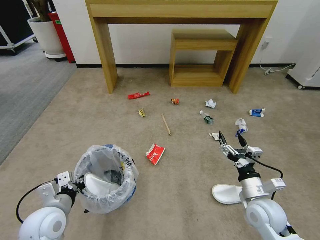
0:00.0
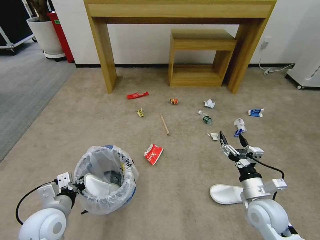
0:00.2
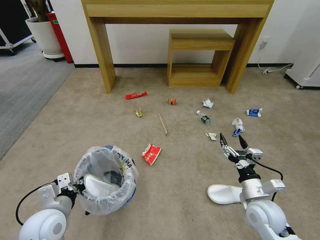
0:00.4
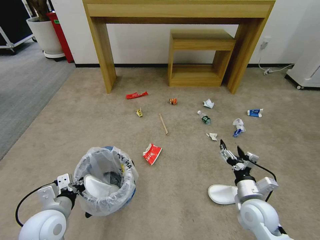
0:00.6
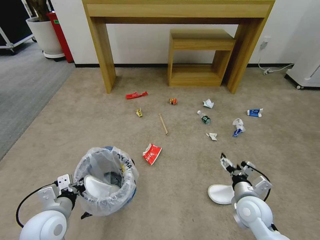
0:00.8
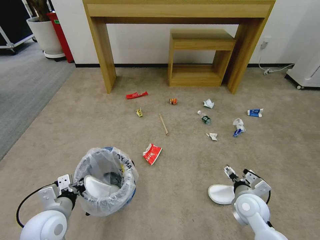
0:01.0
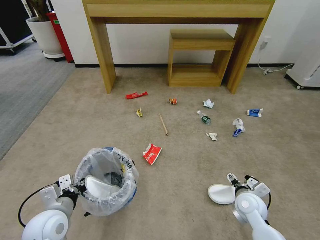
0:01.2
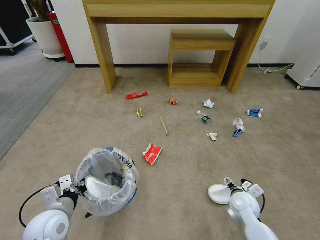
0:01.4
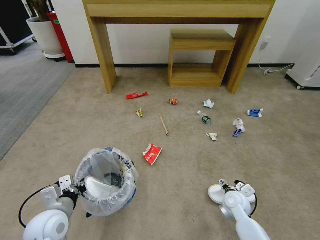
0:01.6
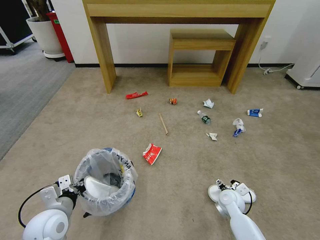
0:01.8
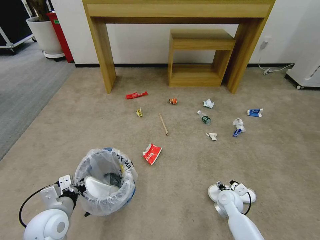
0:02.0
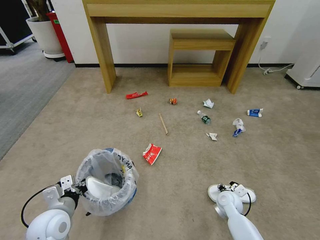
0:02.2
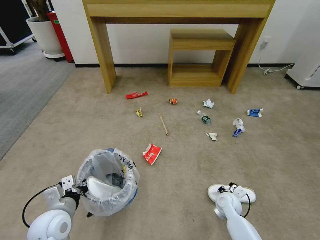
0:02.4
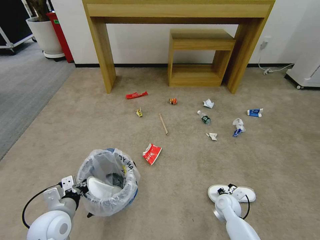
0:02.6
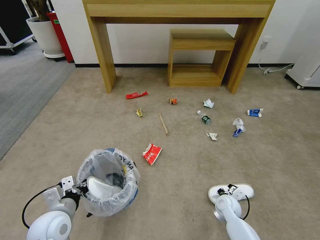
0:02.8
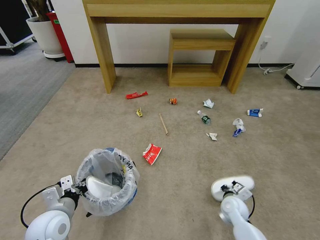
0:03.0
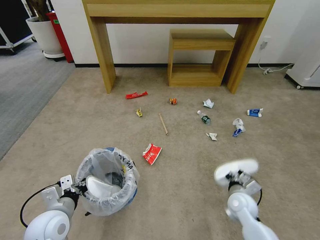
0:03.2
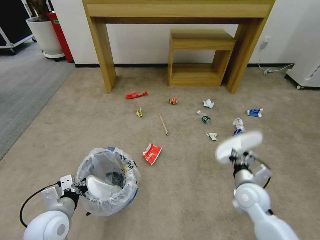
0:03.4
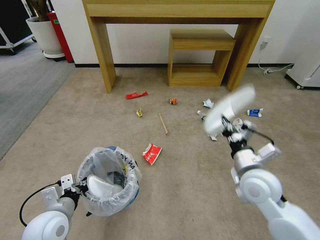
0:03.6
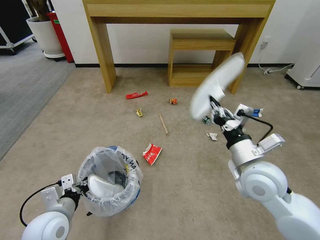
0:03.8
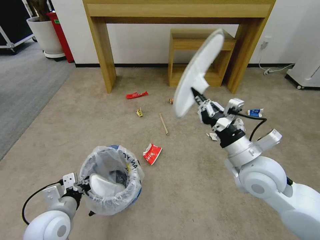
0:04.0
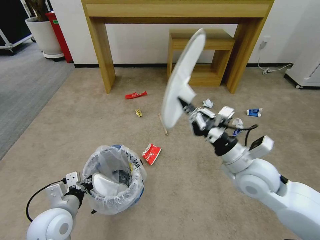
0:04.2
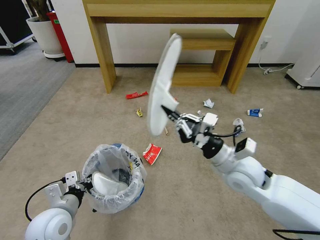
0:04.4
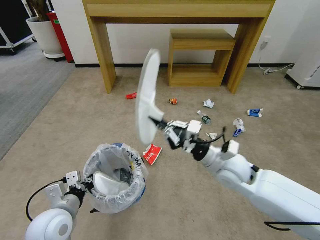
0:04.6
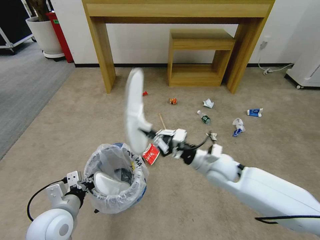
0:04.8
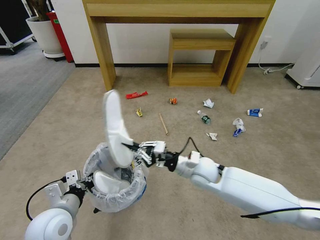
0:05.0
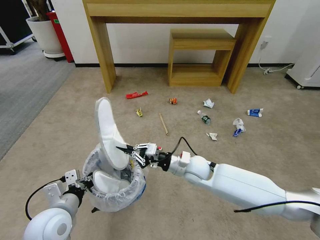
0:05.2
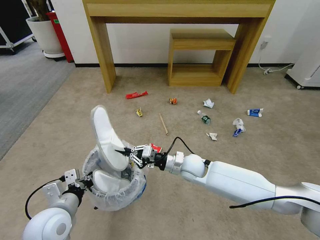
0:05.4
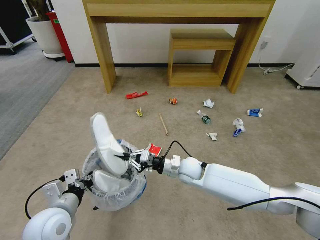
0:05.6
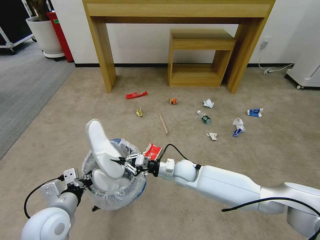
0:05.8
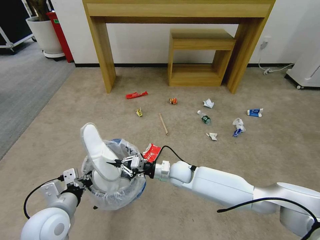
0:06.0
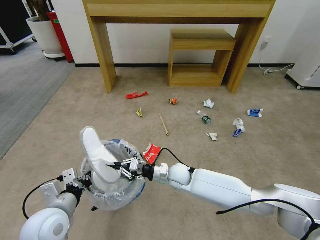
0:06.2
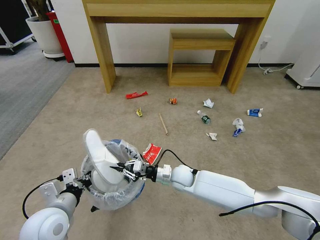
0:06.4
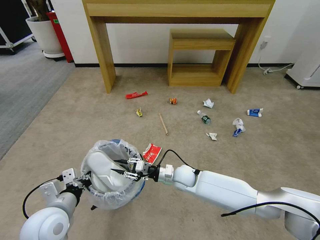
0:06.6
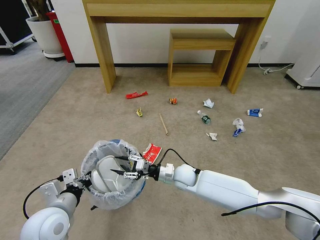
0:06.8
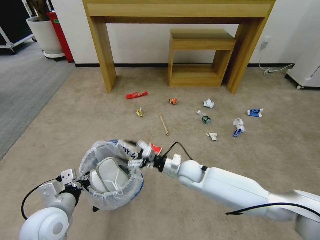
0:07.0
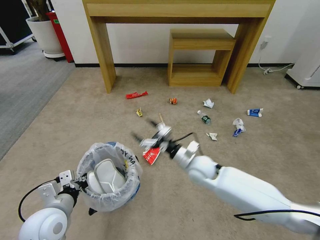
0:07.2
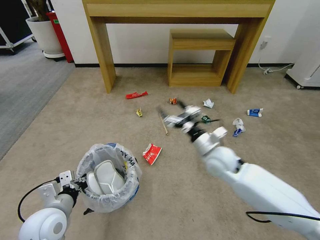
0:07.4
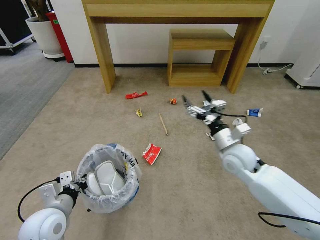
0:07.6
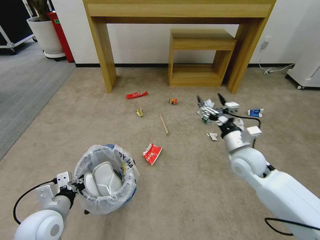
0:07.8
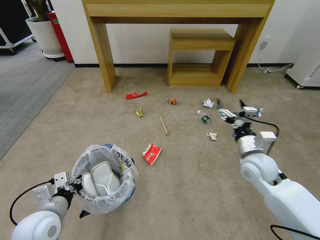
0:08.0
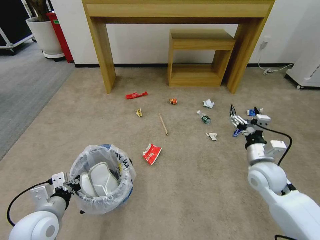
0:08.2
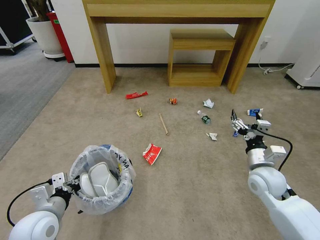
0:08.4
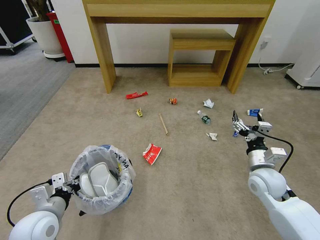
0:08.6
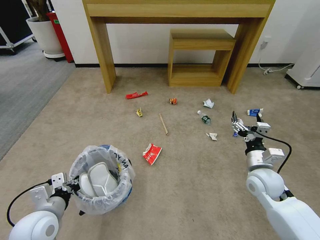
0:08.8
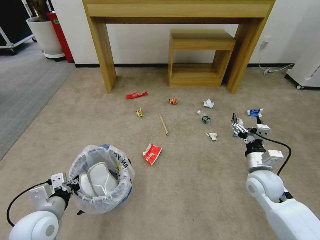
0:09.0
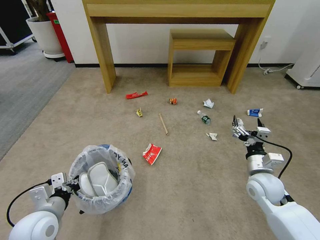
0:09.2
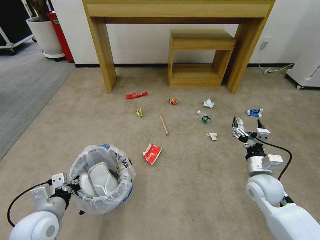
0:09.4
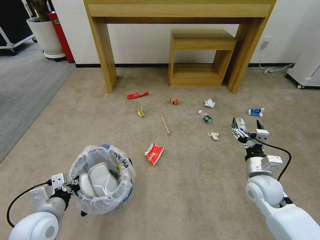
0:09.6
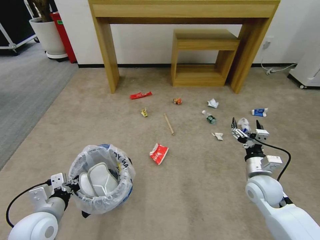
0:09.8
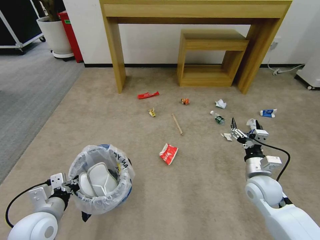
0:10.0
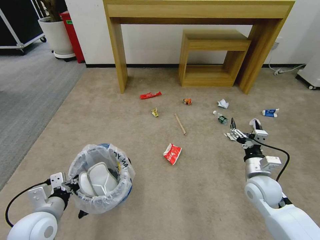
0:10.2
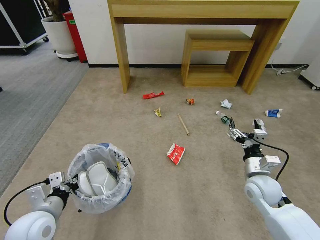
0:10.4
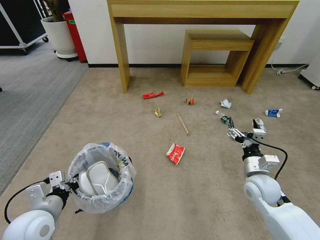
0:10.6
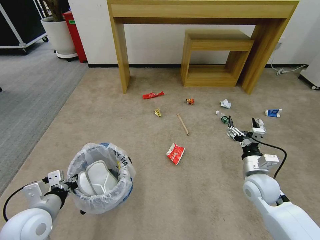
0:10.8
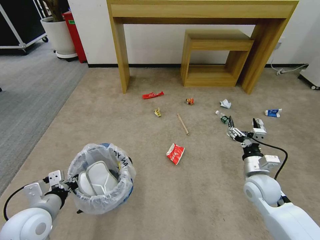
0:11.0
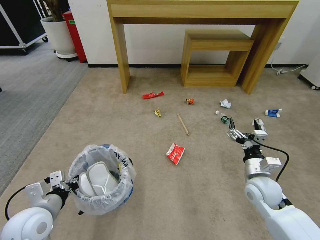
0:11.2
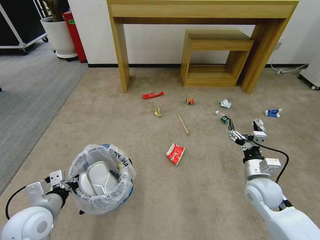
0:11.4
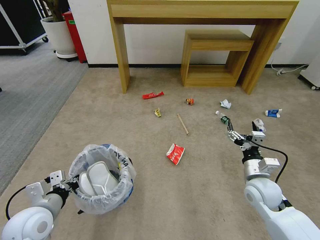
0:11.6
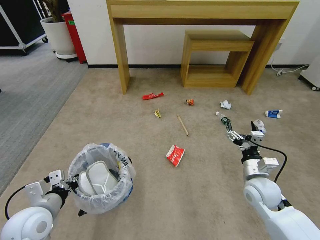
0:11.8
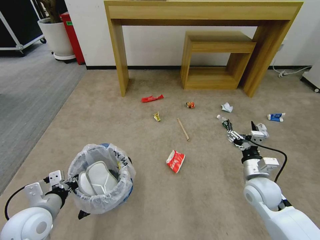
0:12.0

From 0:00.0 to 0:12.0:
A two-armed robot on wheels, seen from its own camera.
Task of the whole recording: Pick up the trash bin and place the garbage on the floor into it.
From 0:00.0 to 0:01.6: The right gripper shifts roughly 15 cm downward and forward.
From 0:01.6 to 0:03.0: The right gripper closes its fingers.
From 0:03.0 to 0:04.4: The right gripper is displaced upward by approximately 25 cm.
From 0:04.4 to 0:06.0: The right gripper goes approximately 25 cm downward, to the left and forward.
From 0:06.0 to 0:07.6: The right gripper heads to the right and upward, covering about 20 cm, and opens its fingers.
From 0:07.6 to 0:09.0: The right gripper moves to the right, backward and downward, some 10 cm.
From 0:10.4 to 0:12.0: There are only small adjustments of the grippers.

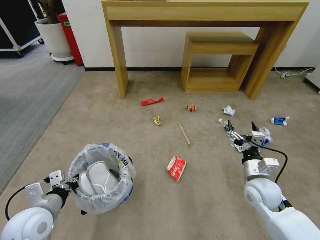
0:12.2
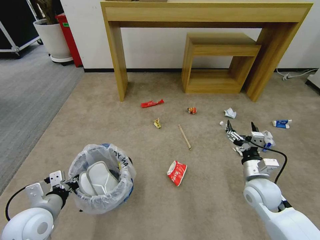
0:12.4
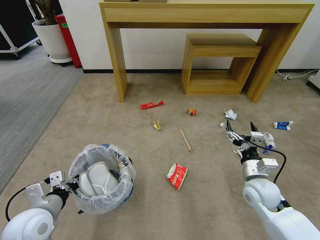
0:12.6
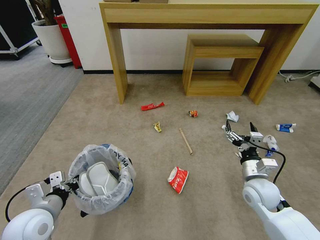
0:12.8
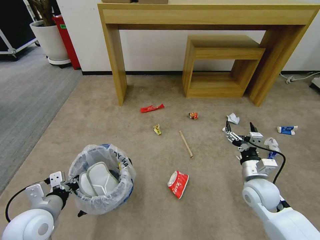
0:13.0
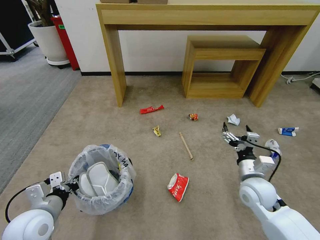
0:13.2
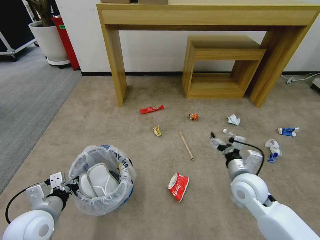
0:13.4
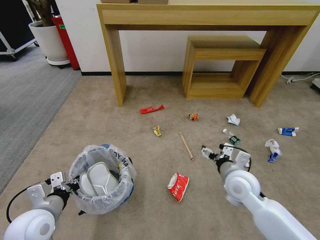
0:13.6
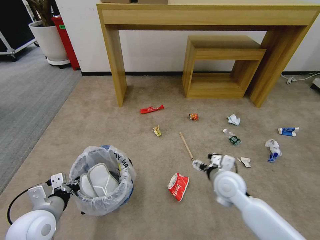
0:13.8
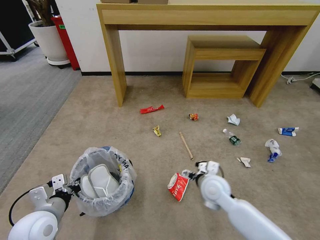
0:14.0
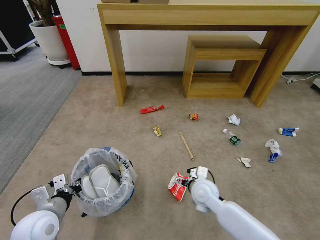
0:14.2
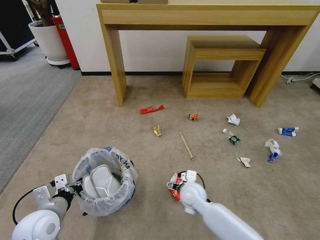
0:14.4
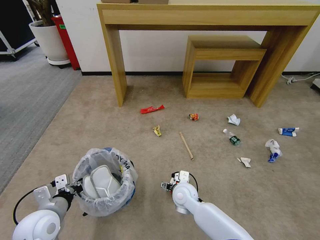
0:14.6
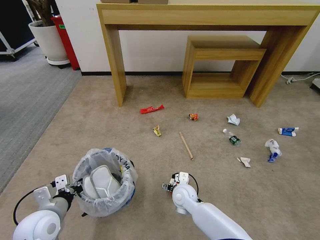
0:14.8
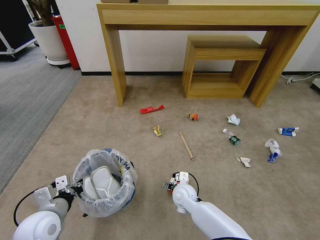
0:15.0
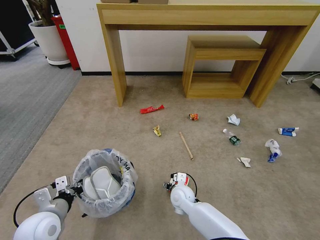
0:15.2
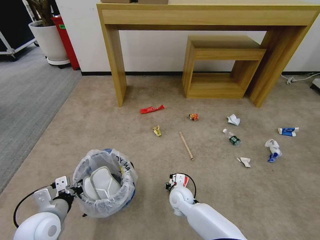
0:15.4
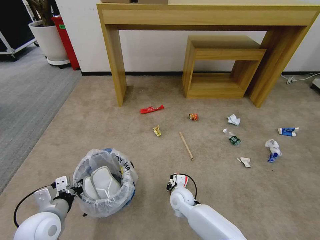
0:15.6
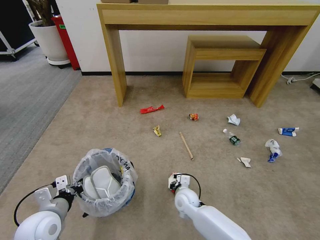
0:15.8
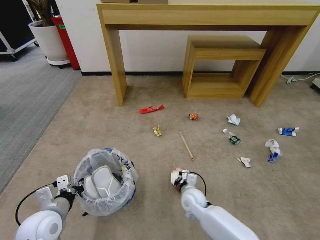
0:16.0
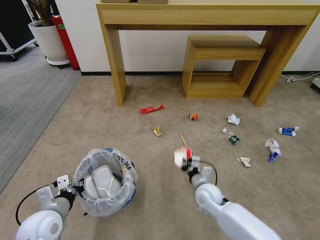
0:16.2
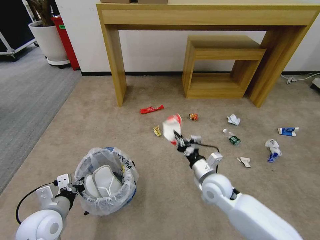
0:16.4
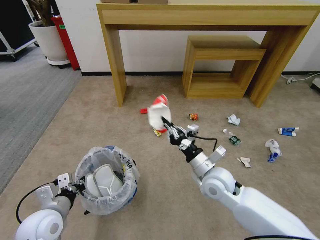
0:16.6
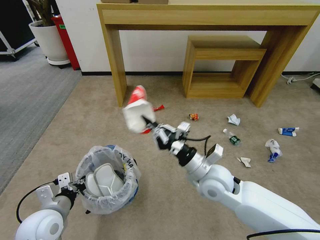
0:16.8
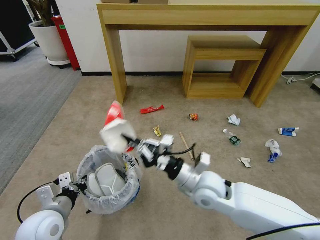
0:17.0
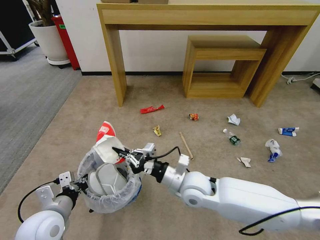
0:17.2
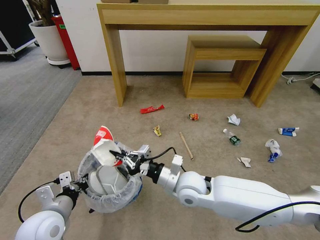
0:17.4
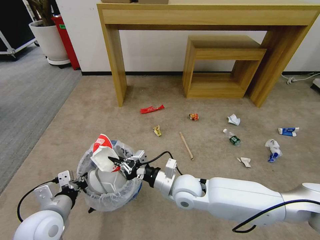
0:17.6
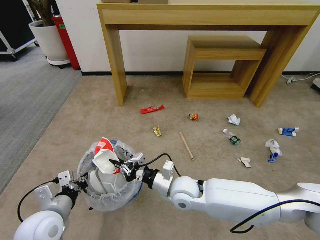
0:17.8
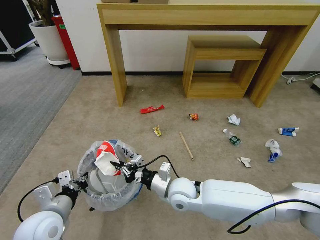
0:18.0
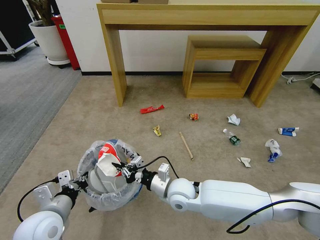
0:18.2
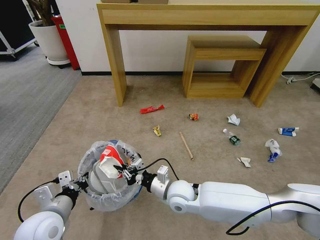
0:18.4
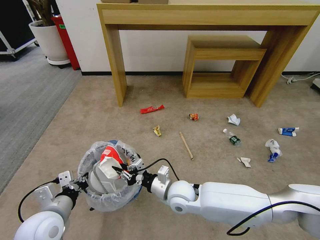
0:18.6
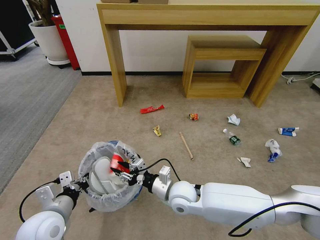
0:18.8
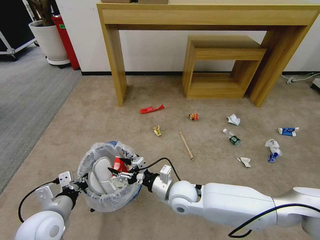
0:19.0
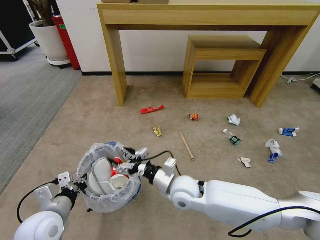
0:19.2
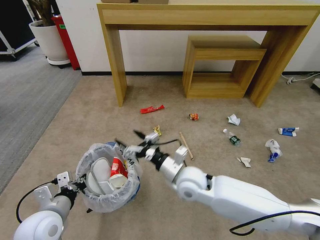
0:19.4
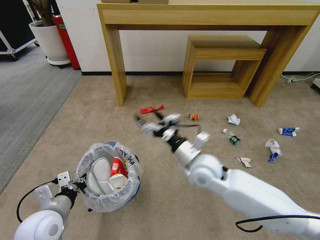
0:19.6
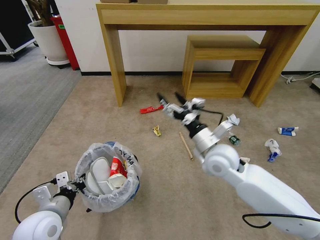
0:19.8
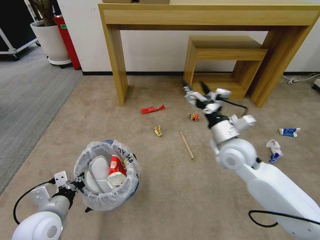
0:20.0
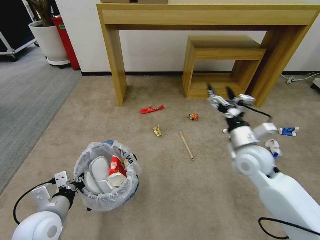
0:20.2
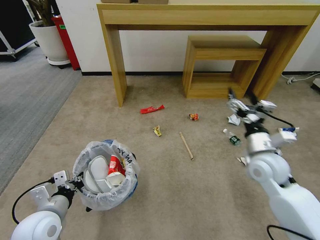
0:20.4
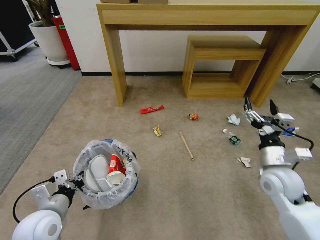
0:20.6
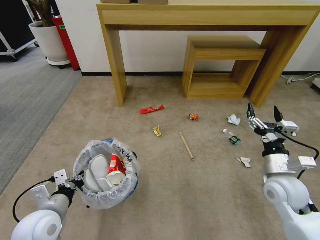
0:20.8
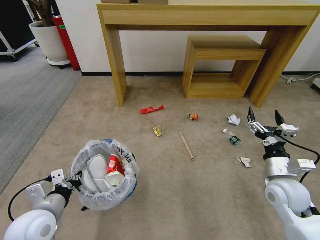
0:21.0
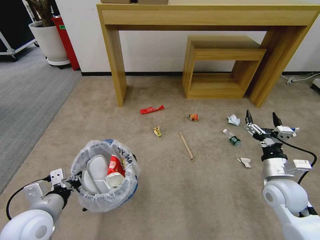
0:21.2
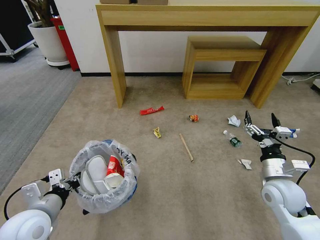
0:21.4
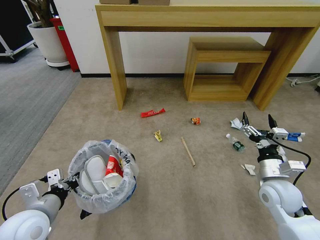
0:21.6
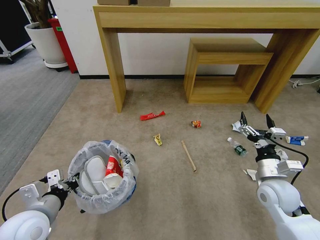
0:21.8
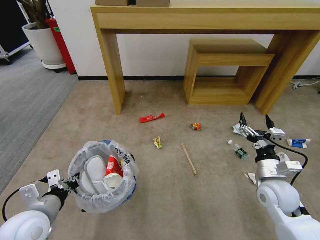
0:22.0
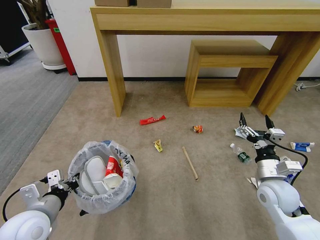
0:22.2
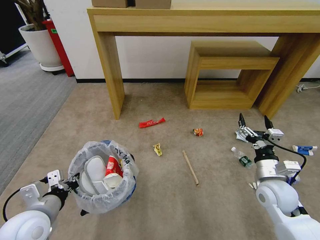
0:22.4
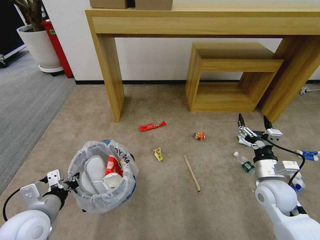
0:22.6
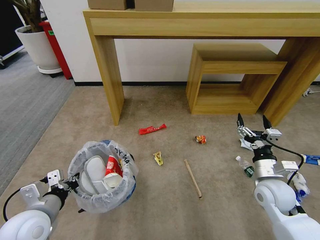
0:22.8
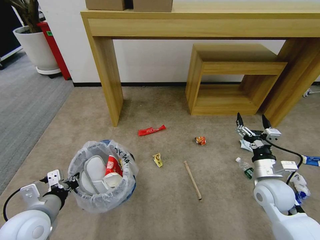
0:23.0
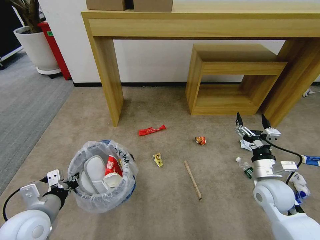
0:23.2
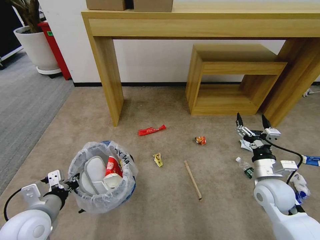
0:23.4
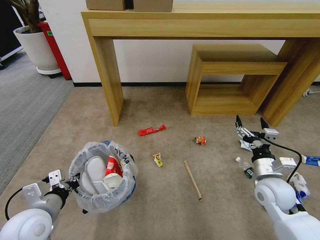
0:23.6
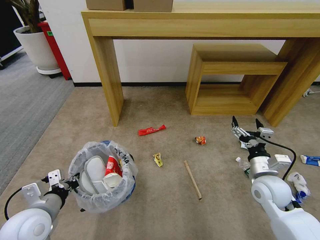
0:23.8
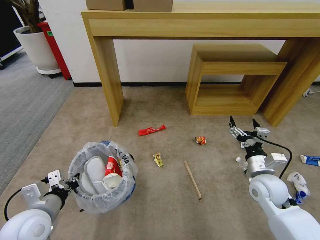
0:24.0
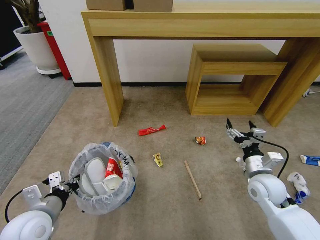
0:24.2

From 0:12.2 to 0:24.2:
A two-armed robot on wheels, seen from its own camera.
Task of the whole recording: Pick up the trash bin and place the garbage on the floor into it.
From 0:12.2 to 0:13.8: The right gripper shifts approximately 10 cm to the left.
From 0:13.8 to 0:15.2: The right gripper heads downward and to the left, covering approximately 20 cm.
From 0:15.2 to 0:16.6: The right gripper is displaced upward and to the right by about 20 cm, and closes.
From 0:16.6 to 0:18.2: The right gripper travels to the left and downward by roughly 10 cm.
From 0:18.2 to 0:19.8: The right gripper goes about 15 cm upward and to the right, and opens.
From 0:19.8 to 0:21.2: The right gripper travels to the right and backward by approximately 20 cm.
From 0:22.6 to 0:24.2: There are only small adjustments of the grippers.
